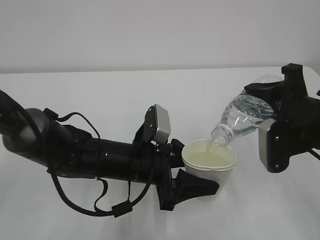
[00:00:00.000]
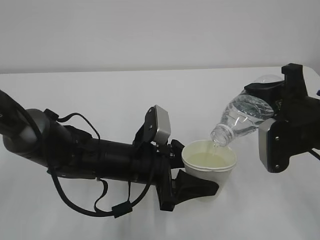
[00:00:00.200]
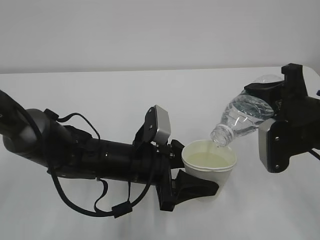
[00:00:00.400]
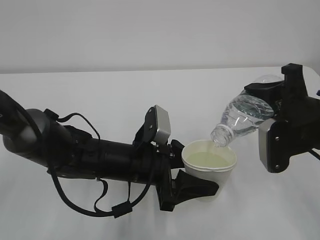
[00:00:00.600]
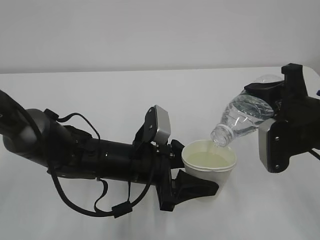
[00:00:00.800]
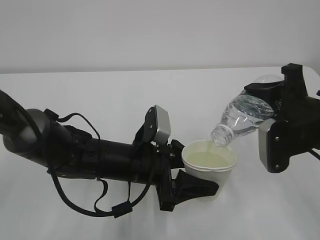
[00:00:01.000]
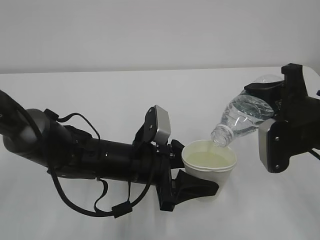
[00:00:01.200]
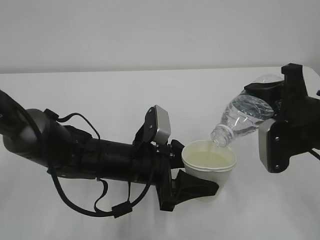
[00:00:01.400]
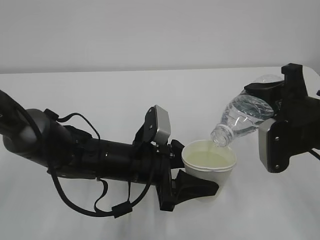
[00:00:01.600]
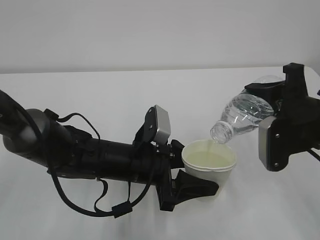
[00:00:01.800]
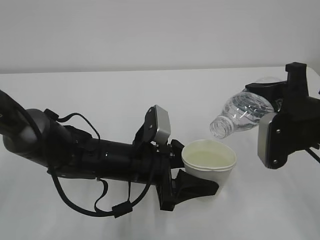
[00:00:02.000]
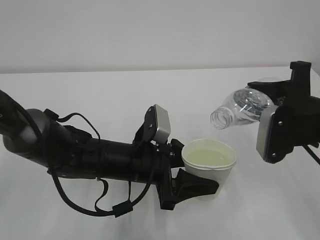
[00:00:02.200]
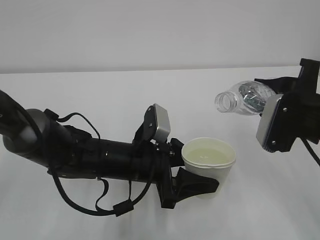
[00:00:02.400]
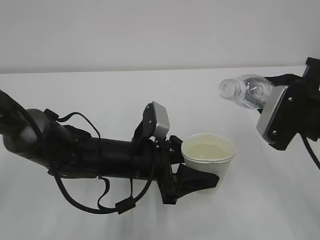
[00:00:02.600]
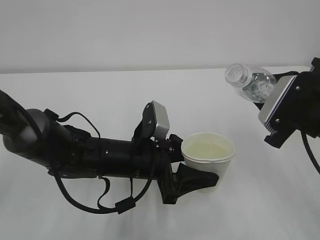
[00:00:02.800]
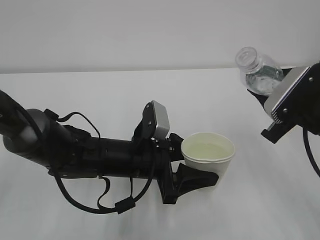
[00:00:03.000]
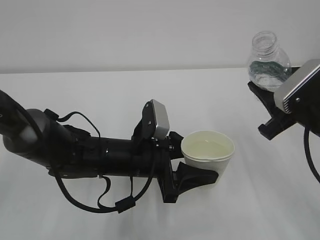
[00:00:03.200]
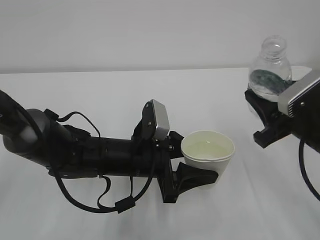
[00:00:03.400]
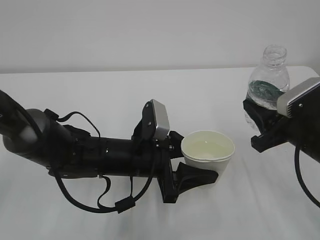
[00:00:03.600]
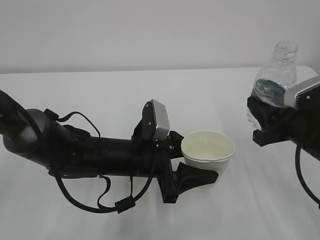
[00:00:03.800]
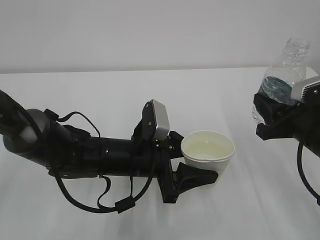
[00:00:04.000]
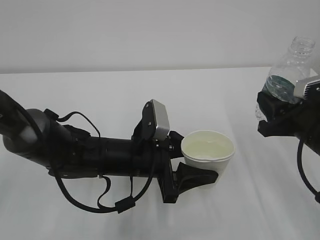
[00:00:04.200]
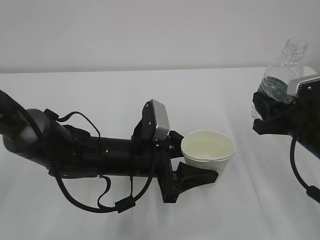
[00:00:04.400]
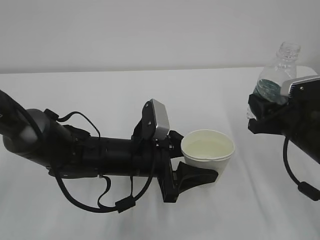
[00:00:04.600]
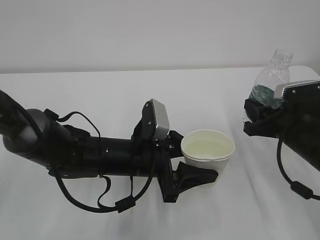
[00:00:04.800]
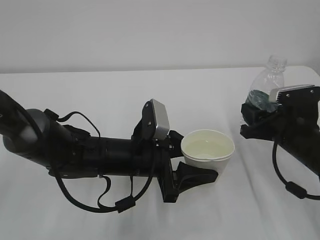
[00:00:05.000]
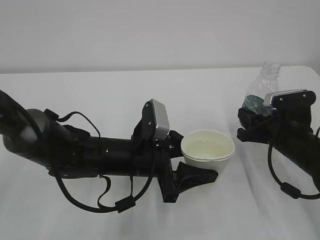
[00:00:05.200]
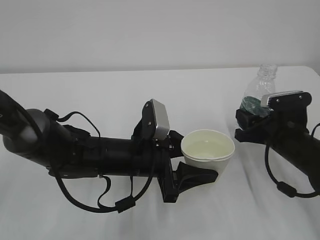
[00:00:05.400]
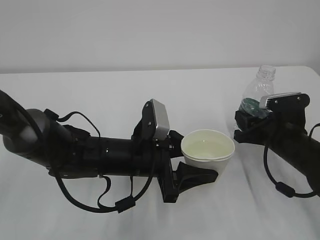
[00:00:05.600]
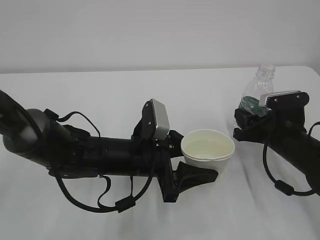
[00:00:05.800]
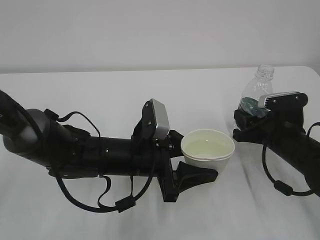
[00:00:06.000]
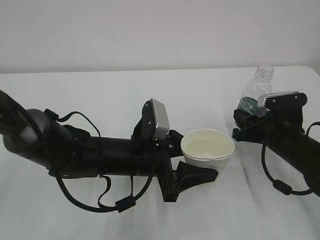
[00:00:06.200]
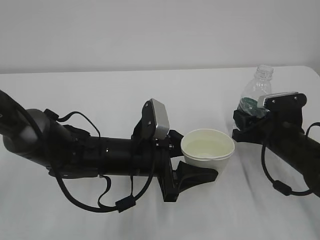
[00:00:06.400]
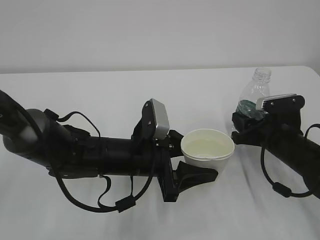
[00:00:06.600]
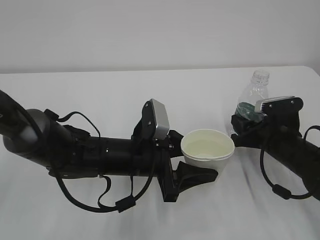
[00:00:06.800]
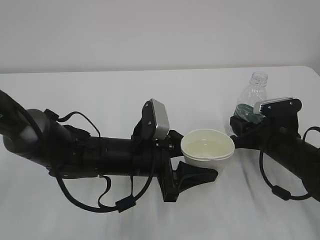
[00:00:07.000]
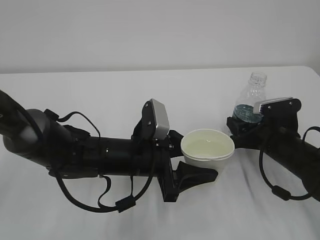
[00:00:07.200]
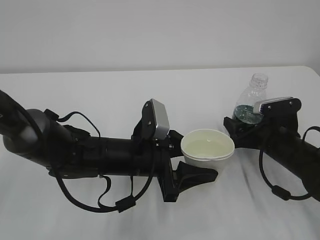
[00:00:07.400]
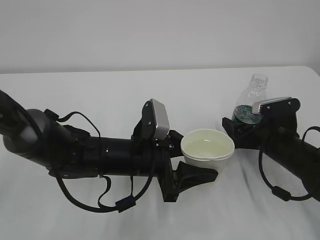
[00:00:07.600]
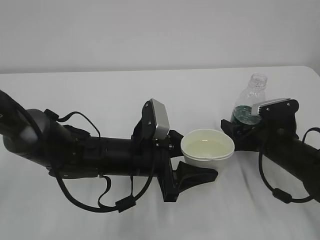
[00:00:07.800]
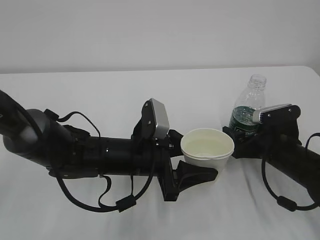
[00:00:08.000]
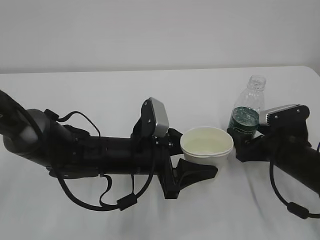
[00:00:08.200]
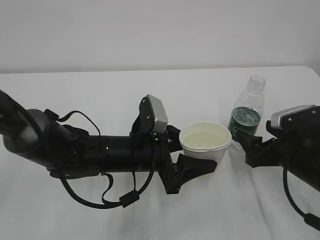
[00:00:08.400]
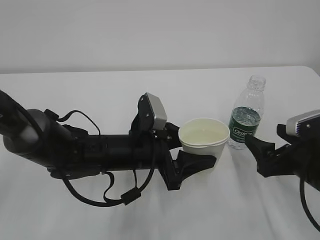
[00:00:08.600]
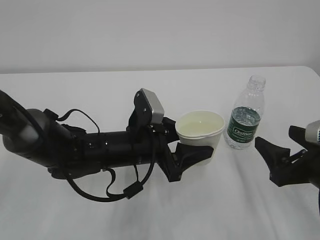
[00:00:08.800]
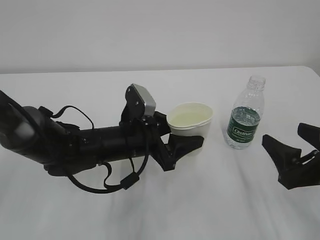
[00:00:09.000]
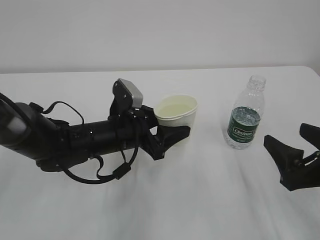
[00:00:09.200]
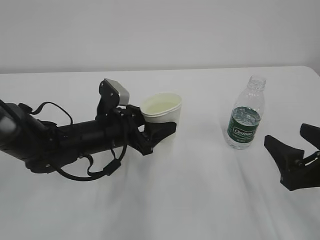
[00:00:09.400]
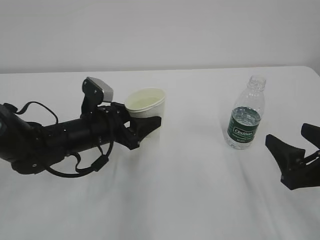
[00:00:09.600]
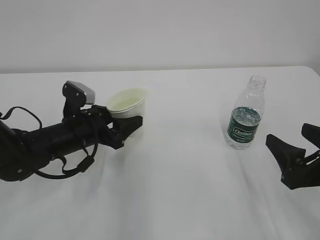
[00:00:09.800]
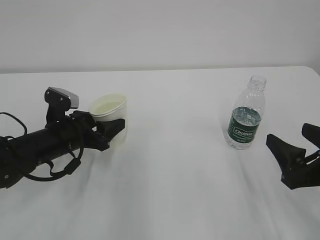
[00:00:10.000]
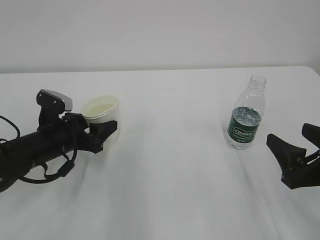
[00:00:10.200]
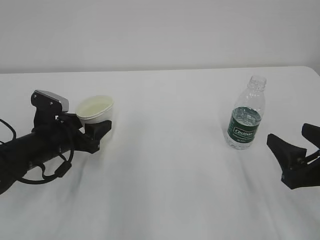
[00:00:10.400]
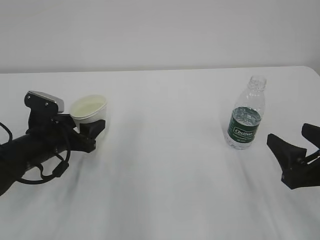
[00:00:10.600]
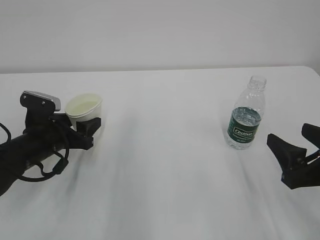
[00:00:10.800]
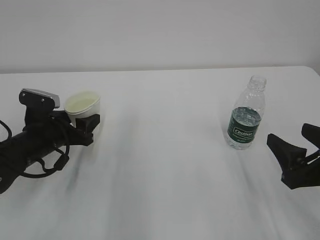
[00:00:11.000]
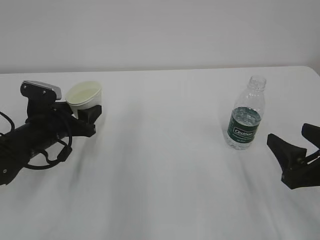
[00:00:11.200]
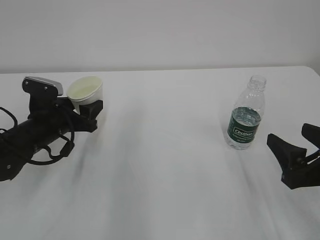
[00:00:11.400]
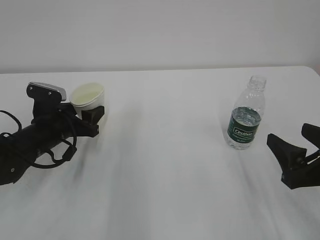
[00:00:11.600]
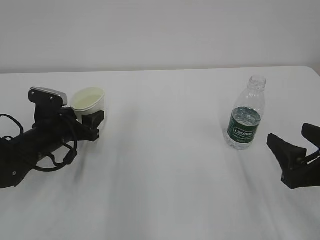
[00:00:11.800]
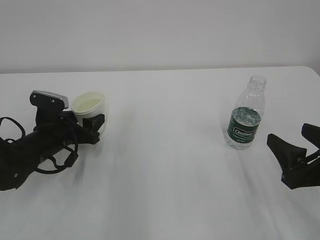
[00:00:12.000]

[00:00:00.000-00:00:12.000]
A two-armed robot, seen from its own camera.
00:00:00.000 to 00:00:01.600: Neither gripper changes place.
00:00:04.400 to 00:00:06.000: The right gripper shifts approximately 5 cm downward.
00:00:06.000 to 00:00:07.600: The right gripper opens its fingers.
00:00:07.600 to 00:00:09.000: The right gripper heads backward and upward, covering roughly 15 cm.
00:00:09.000 to 00:00:10.400: The left gripper moves to the left, some 15 cm.
00:00:10.400 to 00:00:12.000: The grippers stay close to where they were, moving slightly.

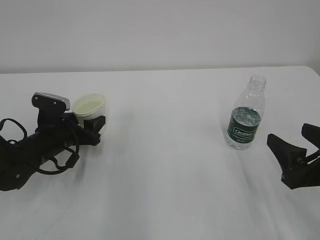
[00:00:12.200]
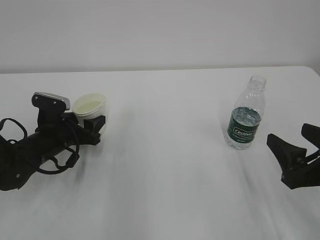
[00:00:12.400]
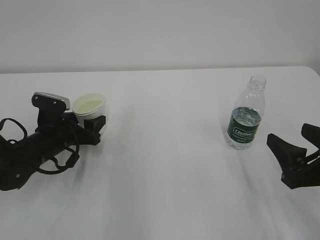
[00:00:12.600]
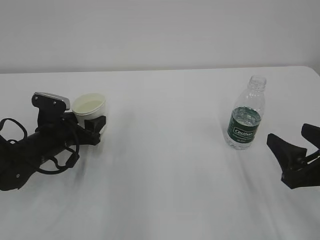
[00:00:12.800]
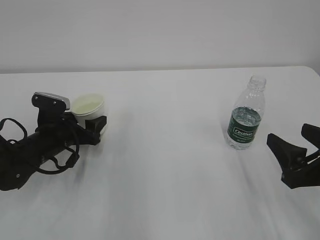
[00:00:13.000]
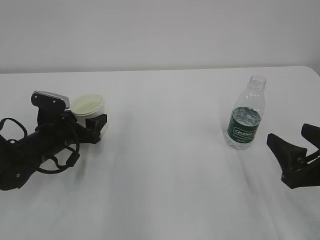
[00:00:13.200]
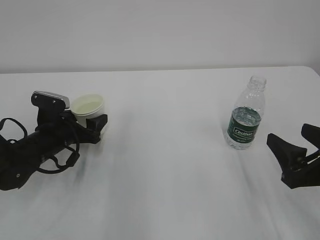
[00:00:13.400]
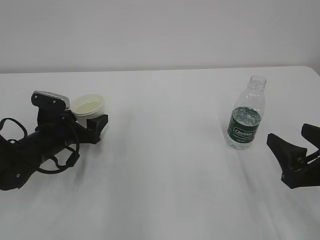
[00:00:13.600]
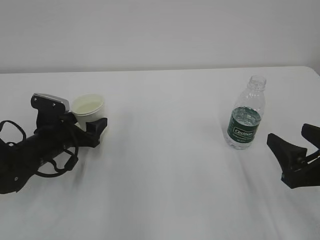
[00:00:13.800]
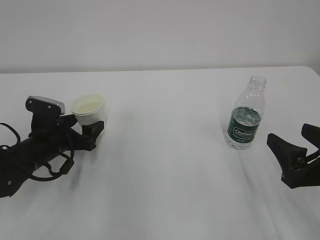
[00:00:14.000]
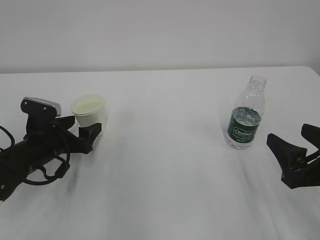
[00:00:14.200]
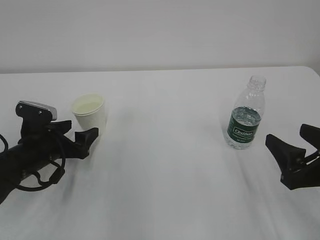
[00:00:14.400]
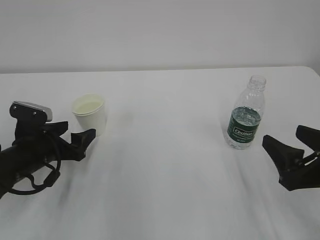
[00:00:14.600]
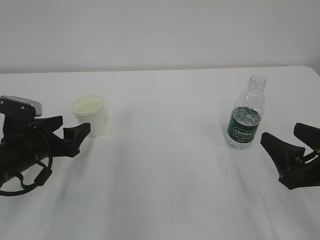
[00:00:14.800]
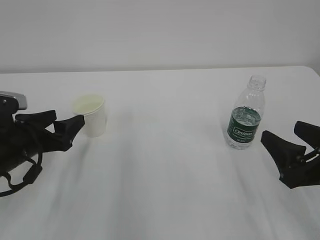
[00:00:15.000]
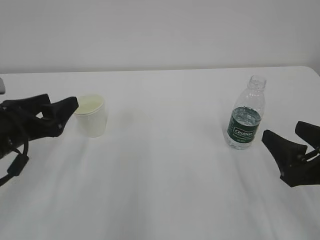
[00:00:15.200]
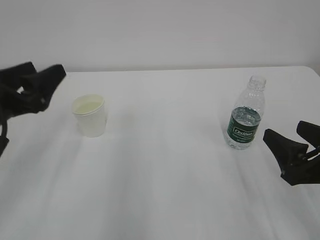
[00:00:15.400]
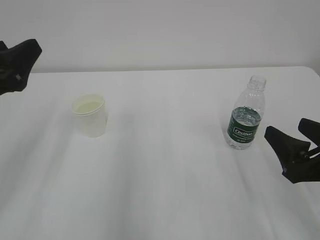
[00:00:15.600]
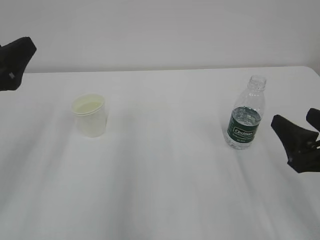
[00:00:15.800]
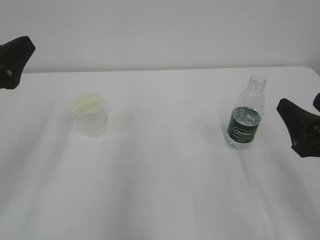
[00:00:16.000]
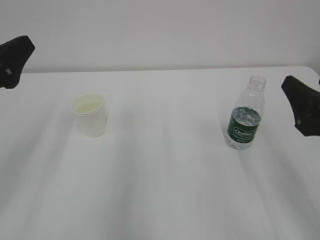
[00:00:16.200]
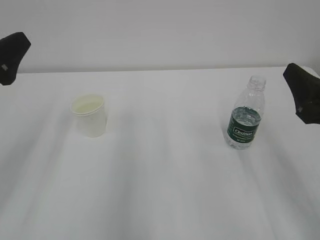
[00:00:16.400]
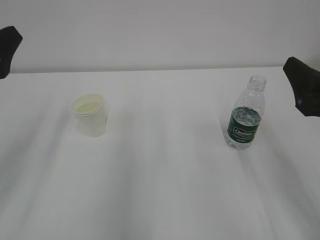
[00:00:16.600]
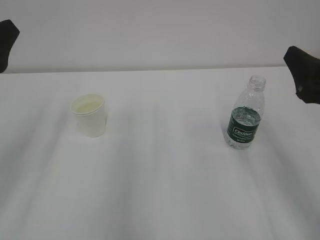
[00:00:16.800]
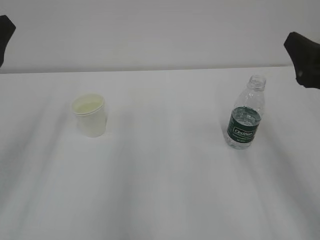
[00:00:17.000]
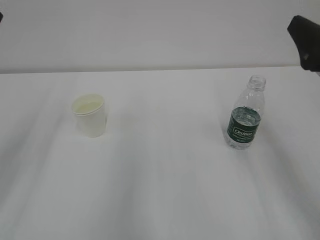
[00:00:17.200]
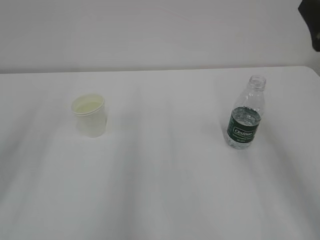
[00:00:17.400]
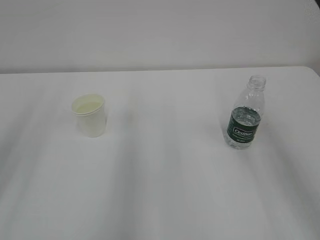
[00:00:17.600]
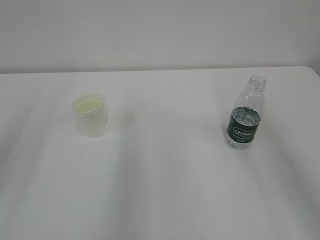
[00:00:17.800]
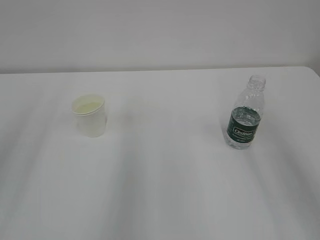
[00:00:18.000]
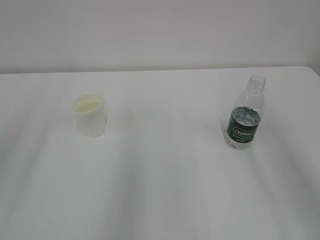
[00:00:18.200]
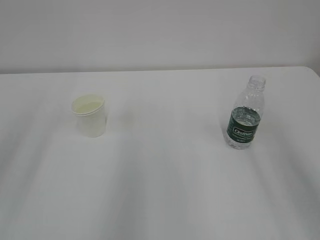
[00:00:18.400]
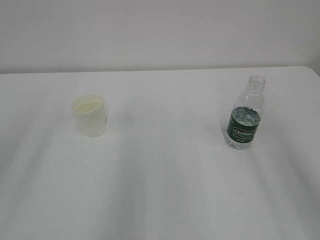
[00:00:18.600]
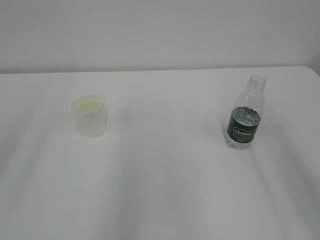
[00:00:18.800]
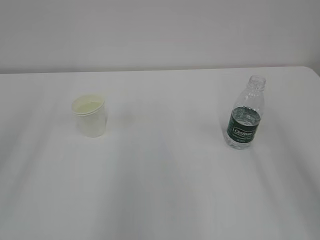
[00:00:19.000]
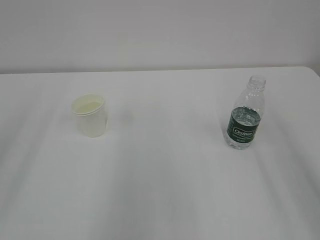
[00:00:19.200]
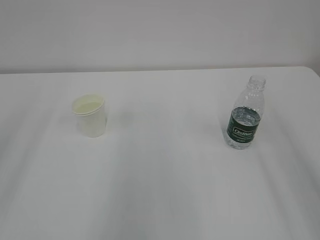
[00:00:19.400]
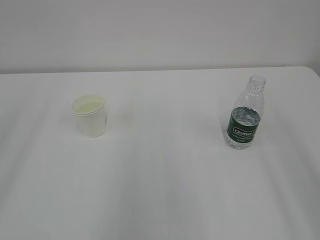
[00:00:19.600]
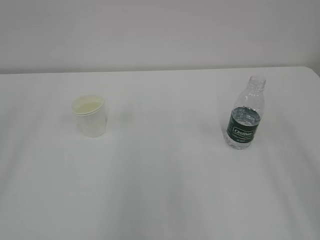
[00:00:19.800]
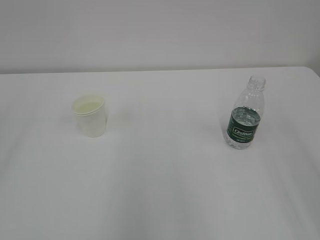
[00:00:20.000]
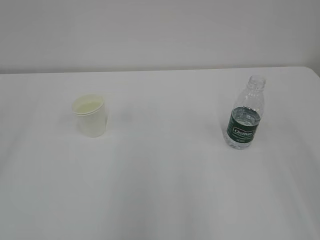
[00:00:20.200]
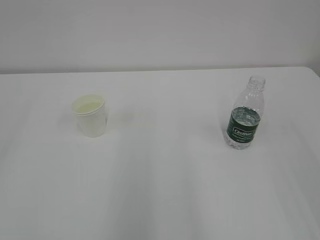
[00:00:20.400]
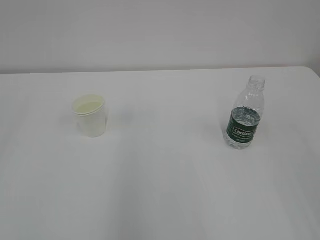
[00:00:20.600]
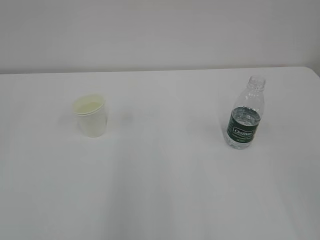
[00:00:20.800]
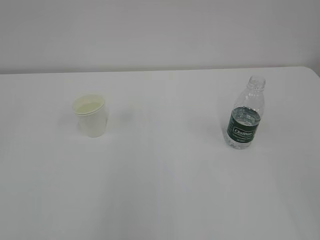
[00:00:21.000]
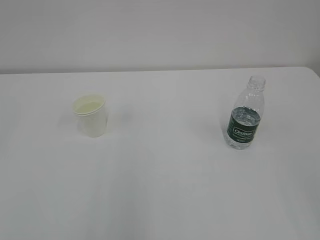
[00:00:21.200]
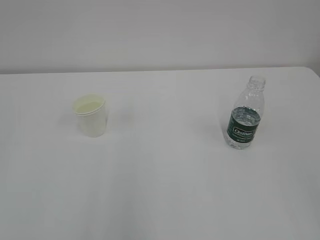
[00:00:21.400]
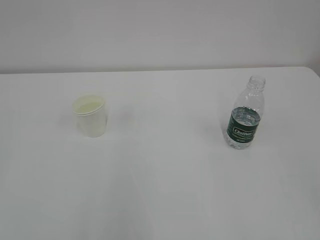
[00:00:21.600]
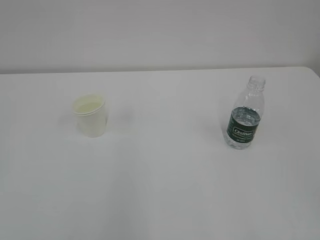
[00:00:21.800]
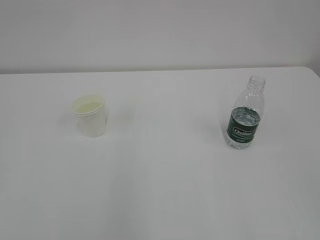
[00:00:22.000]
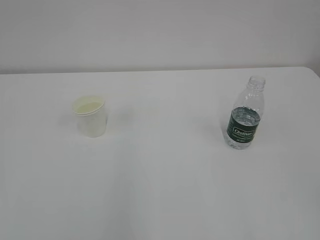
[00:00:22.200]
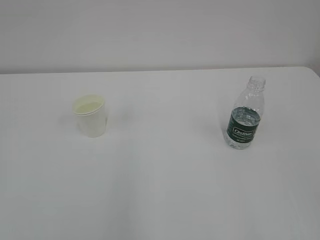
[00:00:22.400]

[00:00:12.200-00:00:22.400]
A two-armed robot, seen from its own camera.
00:00:12.200 to 00:00:13.600: The left gripper opens.
00:00:13.600 to 00:00:15.200: The left gripper shifts approximately 15 cm upward and backward.
00:00:15.200 to 00:00:16.600: The grippers both shift upward by about 10 cm.
00:00:16.600 to 00:00:18.000: The left gripper travels upward and backward by roughly 10 cm. Meanwhile the right gripper shifts roughly 10 cm upward.
